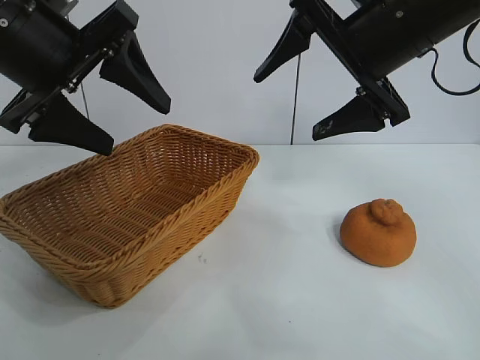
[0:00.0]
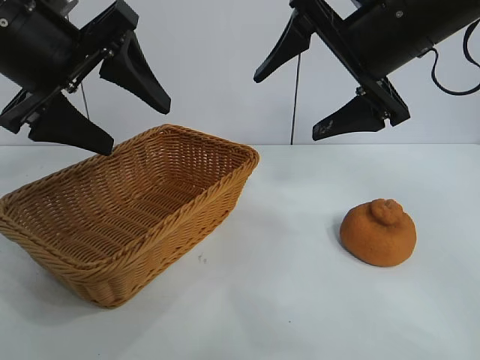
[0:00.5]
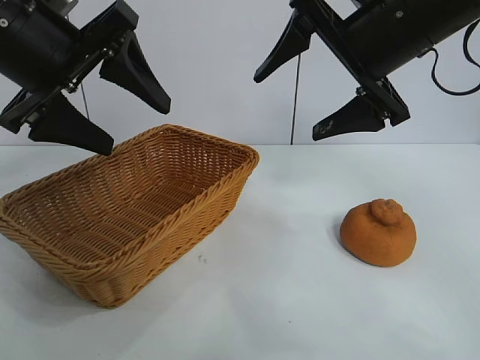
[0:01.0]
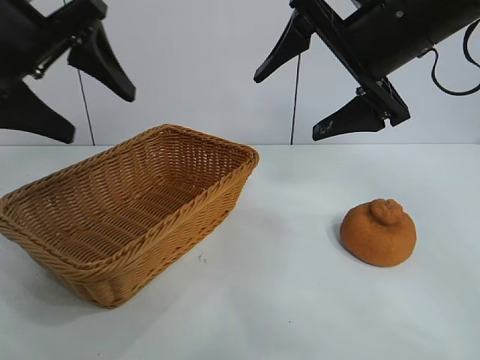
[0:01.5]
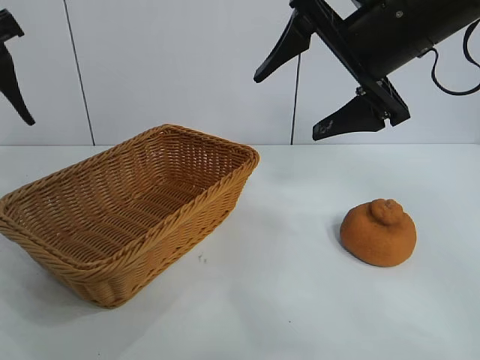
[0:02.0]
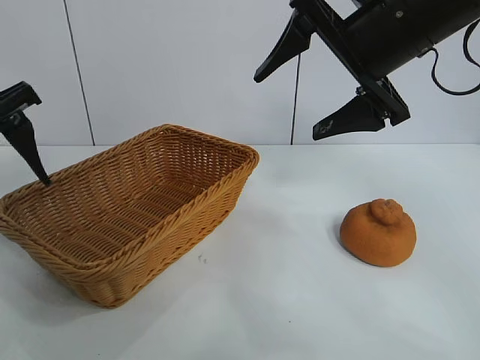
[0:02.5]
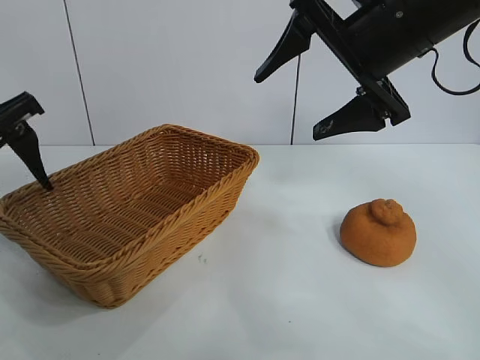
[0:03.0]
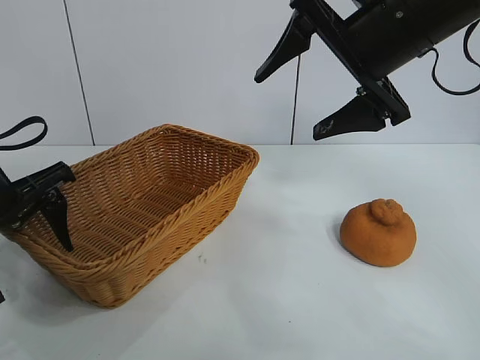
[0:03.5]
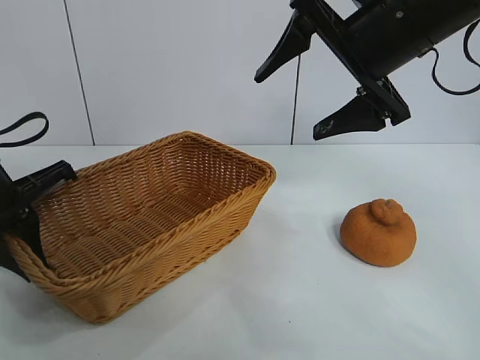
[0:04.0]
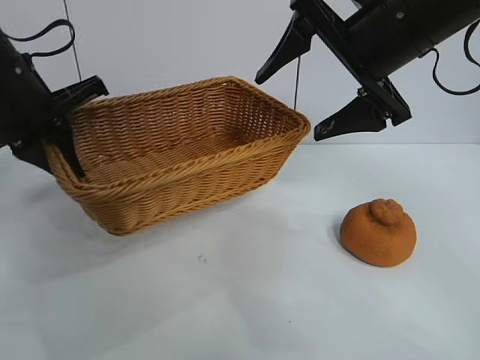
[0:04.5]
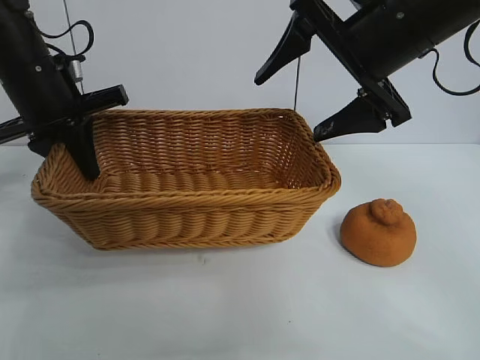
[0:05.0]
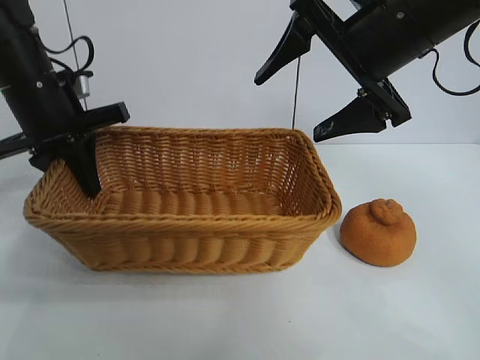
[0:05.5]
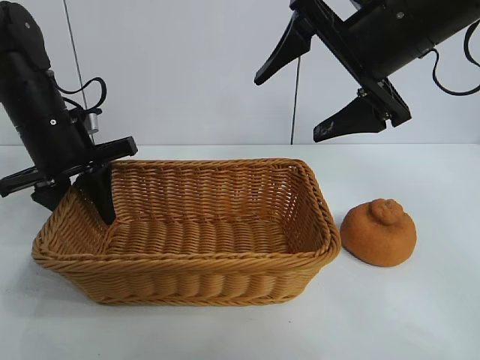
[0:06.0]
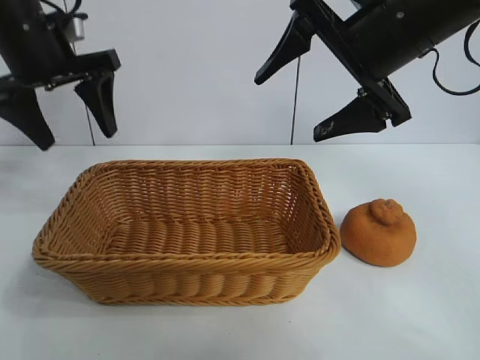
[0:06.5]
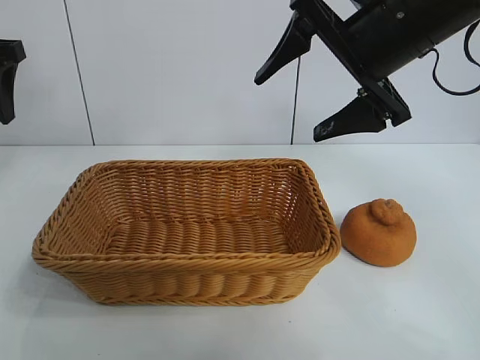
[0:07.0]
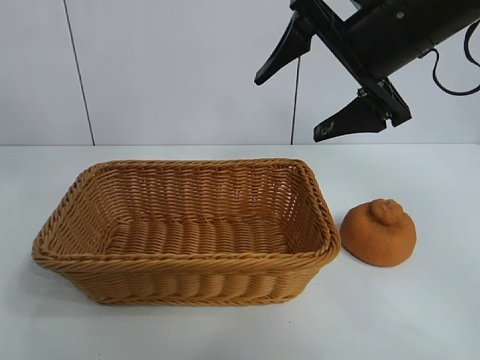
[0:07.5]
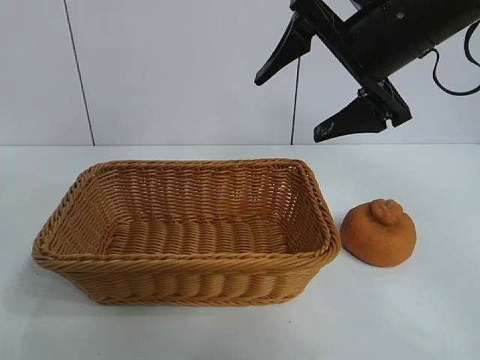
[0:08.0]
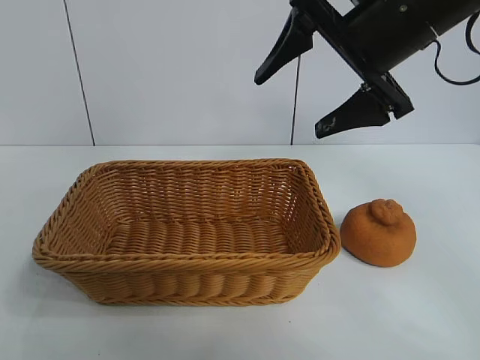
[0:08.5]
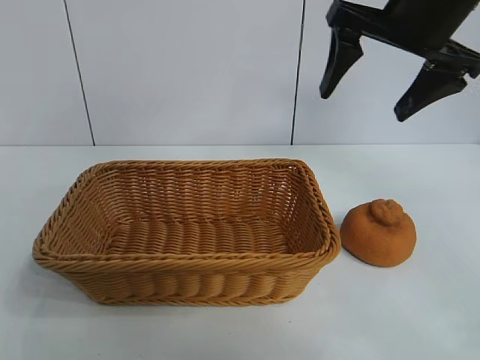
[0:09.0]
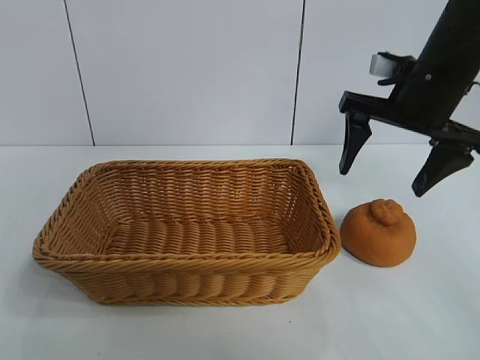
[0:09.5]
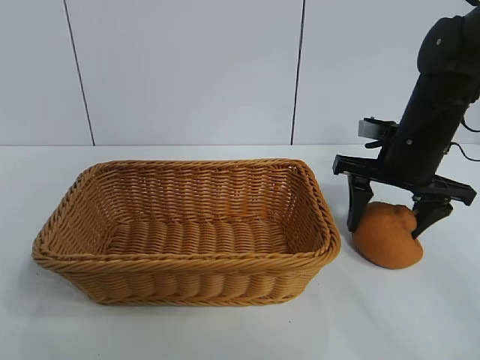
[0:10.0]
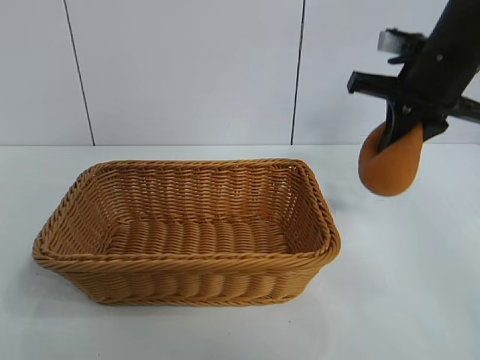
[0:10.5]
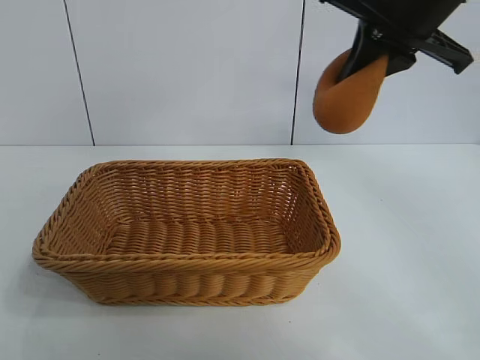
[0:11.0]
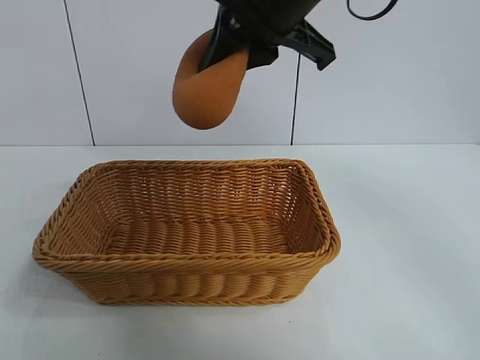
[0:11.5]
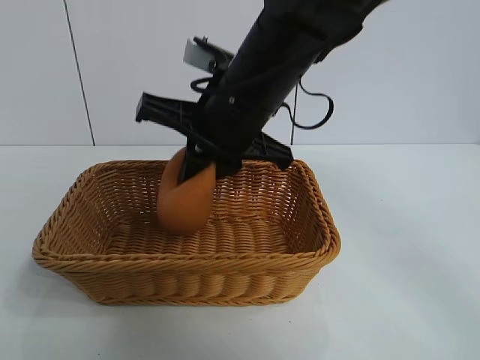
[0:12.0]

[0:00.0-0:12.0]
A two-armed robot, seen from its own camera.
Task of the whole recording: pick up the orange and put it into the basket.
Step, 0:01.0 to 0:03.5: Grasp the basket with left gripper.
Step, 0:04.0 to 0:06.0: Place the basket in the center of view with left gripper.
Step, 0:06.5 to 0:10.0: Grasp the orange with right gripper.
